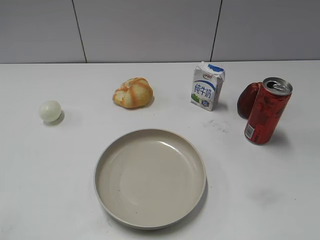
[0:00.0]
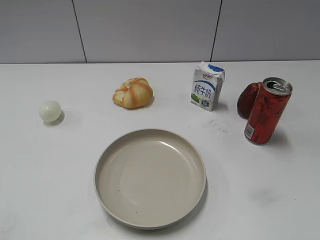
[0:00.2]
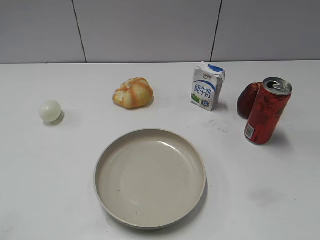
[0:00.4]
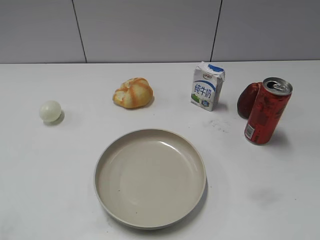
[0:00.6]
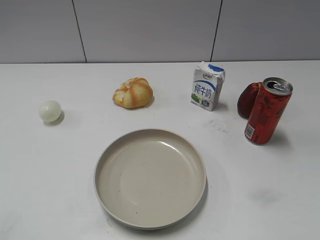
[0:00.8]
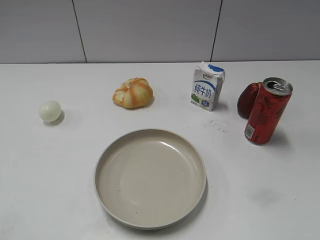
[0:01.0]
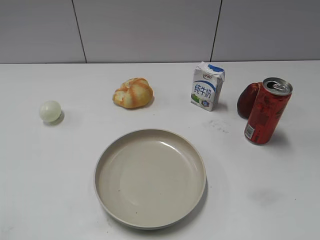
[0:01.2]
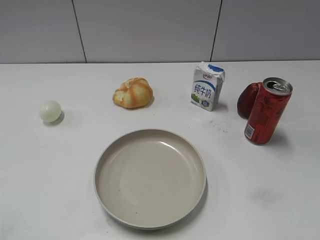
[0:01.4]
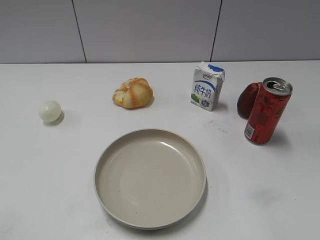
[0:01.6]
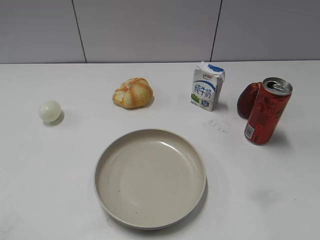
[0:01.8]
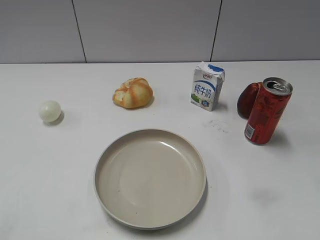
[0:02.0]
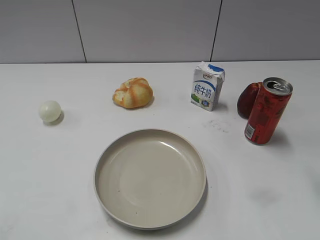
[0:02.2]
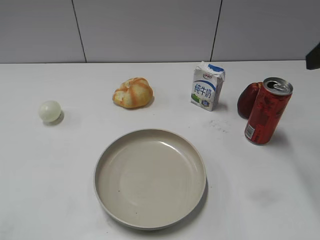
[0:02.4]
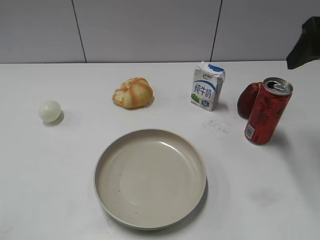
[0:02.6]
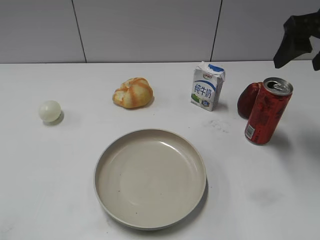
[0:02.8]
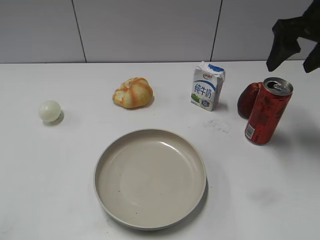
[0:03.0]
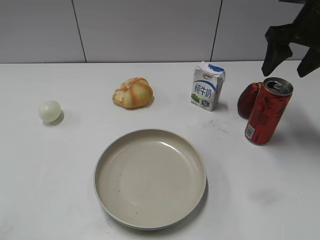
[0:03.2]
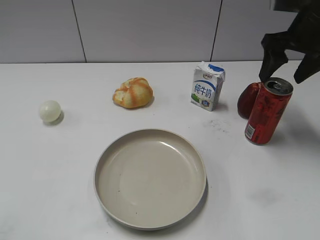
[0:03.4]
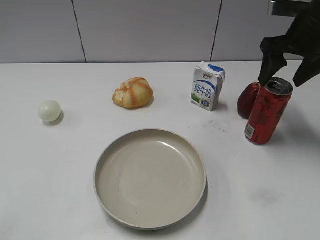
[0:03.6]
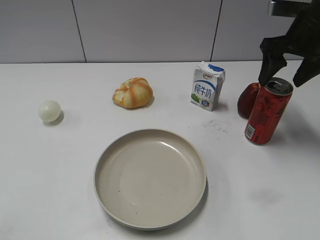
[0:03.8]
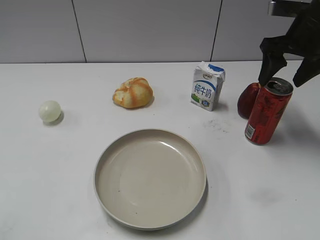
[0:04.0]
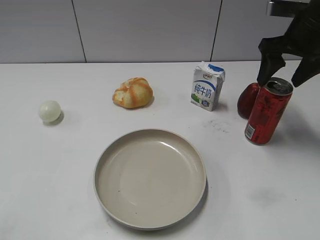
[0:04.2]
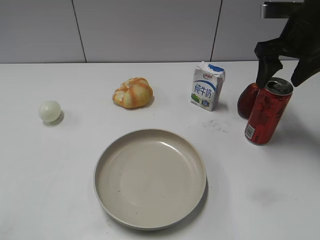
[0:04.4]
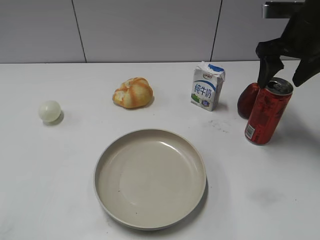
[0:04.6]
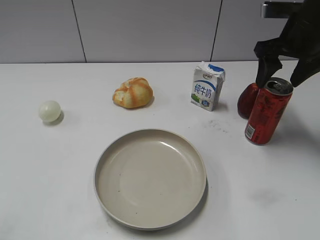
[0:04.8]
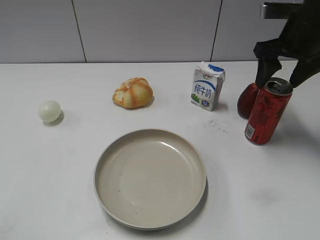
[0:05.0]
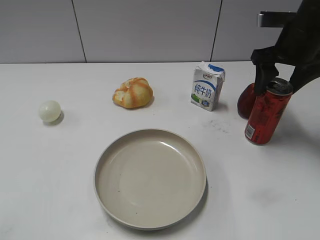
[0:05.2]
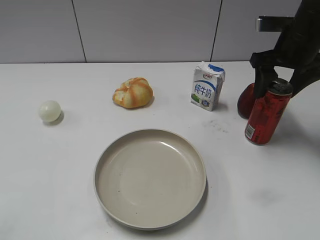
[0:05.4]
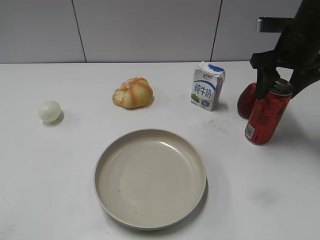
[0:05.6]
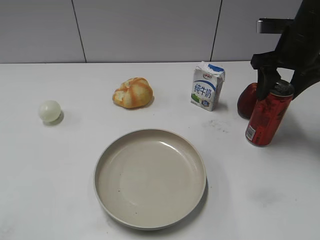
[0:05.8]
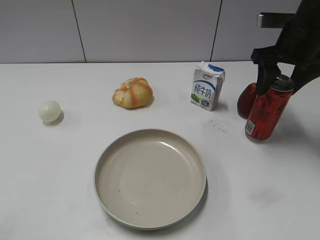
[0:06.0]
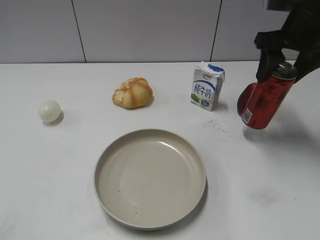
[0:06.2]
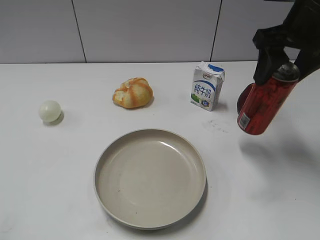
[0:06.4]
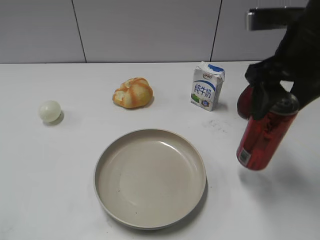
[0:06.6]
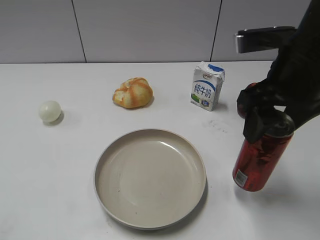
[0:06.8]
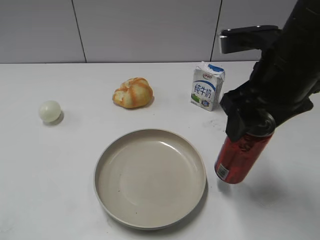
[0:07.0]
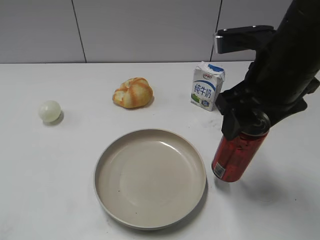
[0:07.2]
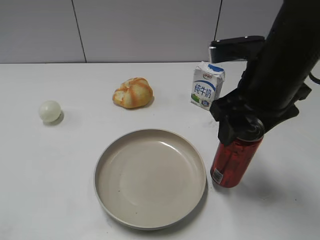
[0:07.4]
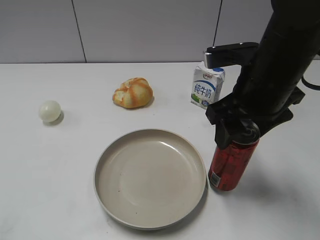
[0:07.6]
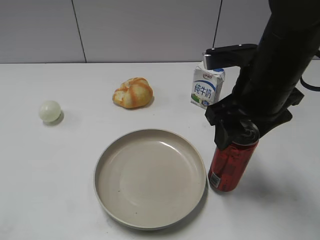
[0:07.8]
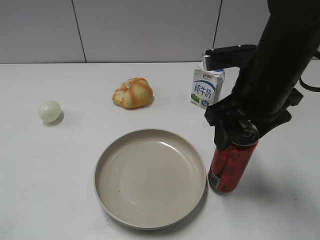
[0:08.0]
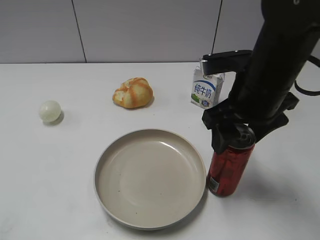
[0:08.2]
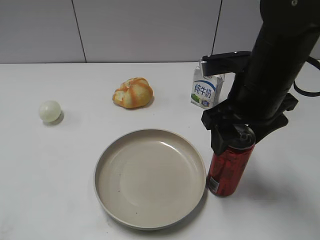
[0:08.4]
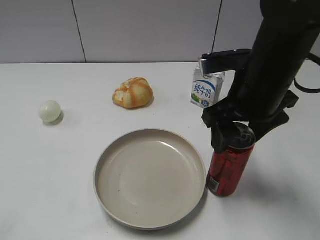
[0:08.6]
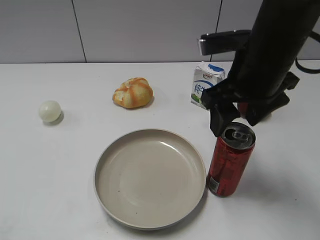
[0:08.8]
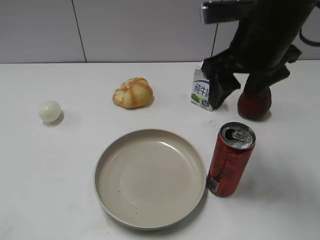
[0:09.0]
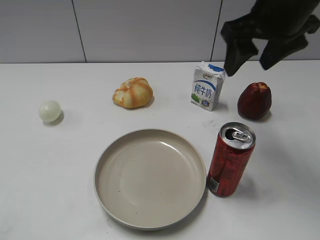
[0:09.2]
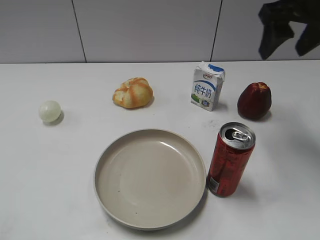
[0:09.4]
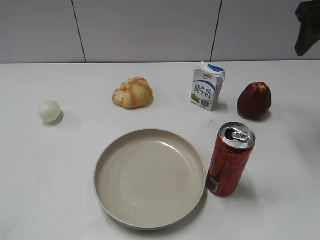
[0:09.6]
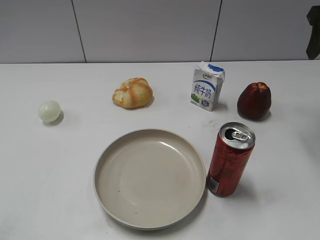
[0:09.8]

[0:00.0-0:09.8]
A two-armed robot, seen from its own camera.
Step, 0:01.2 to 0:05.8: Grasp the cola with right gripper.
Step, 0:06.2 to 0:08.8: Place the cola on the table with right gripper.
0:01.4 to 0:02.8: The right gripper is displaced forward by roughly 30 cm, and opens its fingers.
0:02.8 to 0:04.2: The right gripper goes some 5 cm forward and downward.
0:04.2 to 0:05.6: The right gripper closes.
0:05.6 to 0:07.0: The right gripper shifts about 15 cm backward and to the left.
0:07.0 to 0:08.4: The right gripper opens its fingers.
0:08.4 to 0:09.8: The right gripper heads to the right, upward and forward, covering approximately 20 cm.

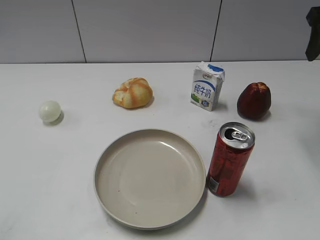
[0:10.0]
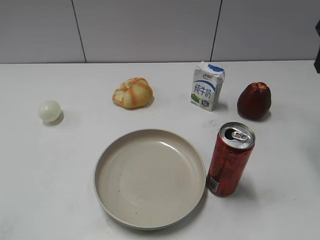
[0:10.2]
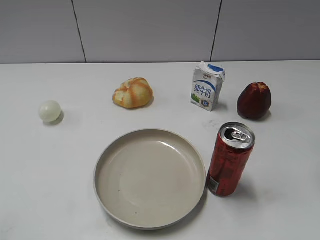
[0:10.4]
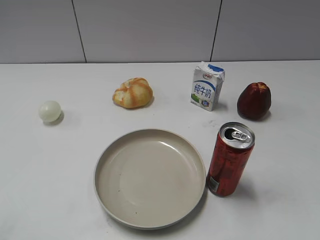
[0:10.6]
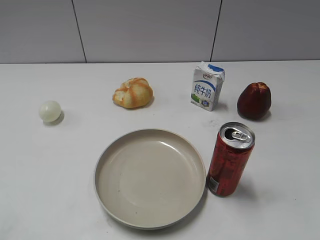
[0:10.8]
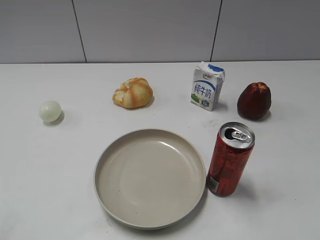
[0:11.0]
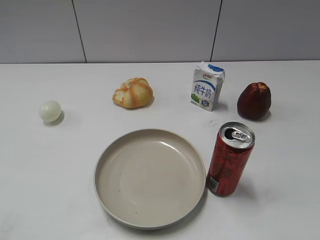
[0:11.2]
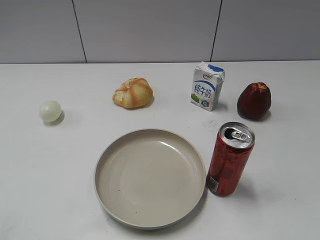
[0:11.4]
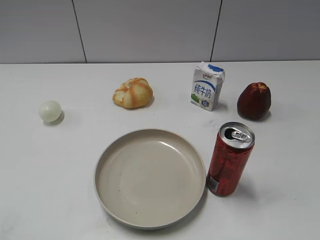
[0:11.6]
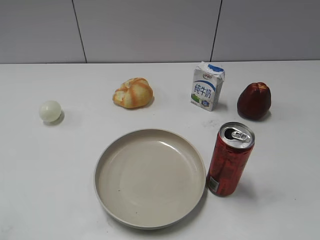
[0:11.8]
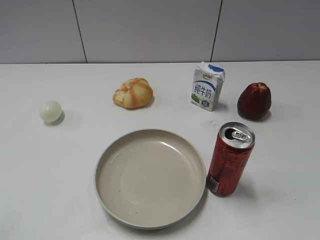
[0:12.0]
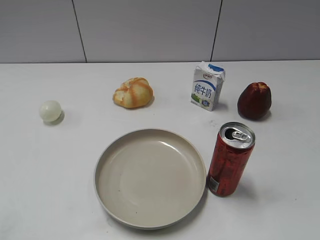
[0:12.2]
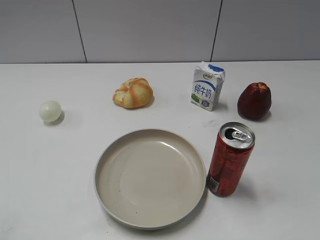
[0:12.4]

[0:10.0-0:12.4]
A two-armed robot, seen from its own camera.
0:10.0 to 0:11.2: The right gripper is displaced backward by some 25 cm.
